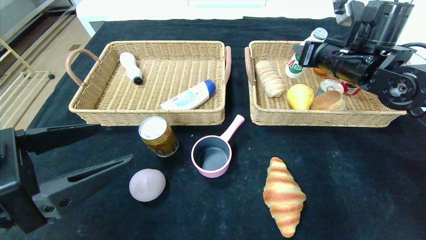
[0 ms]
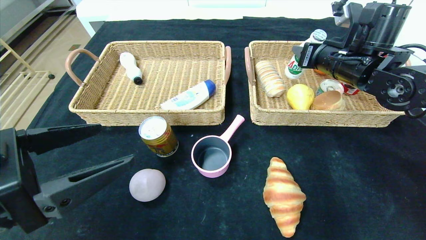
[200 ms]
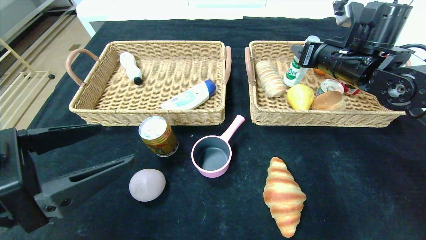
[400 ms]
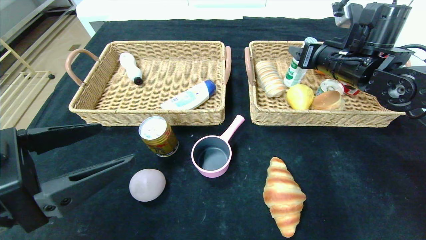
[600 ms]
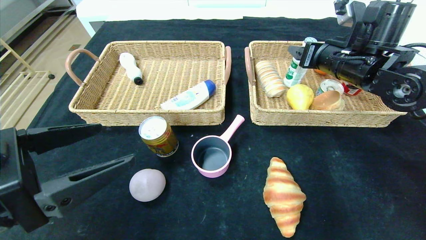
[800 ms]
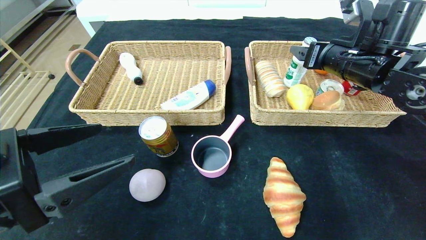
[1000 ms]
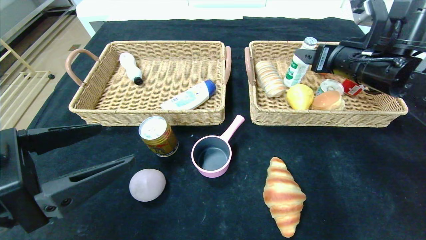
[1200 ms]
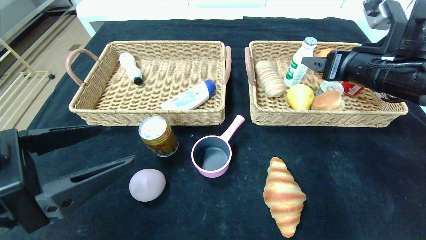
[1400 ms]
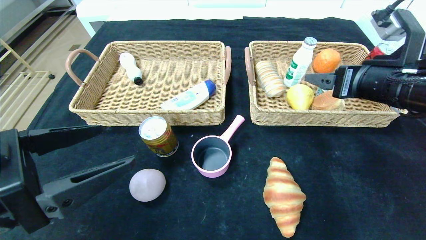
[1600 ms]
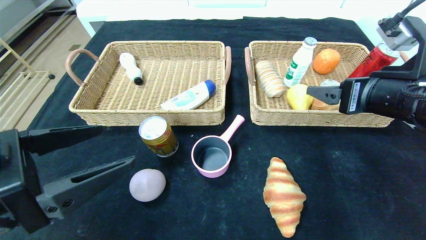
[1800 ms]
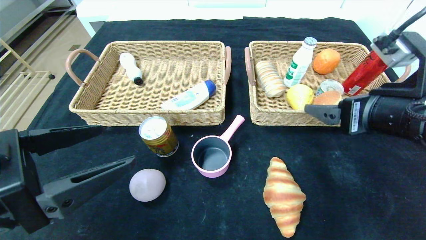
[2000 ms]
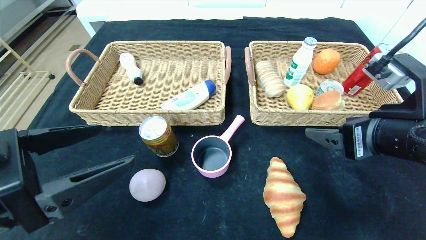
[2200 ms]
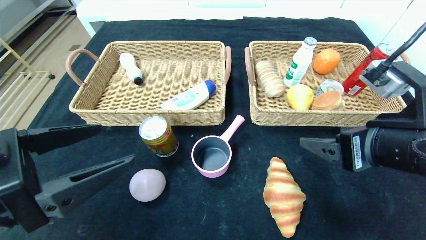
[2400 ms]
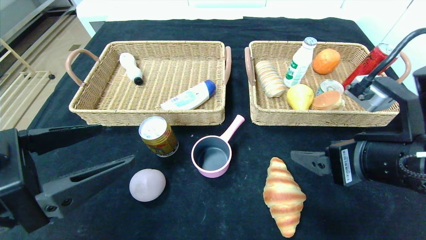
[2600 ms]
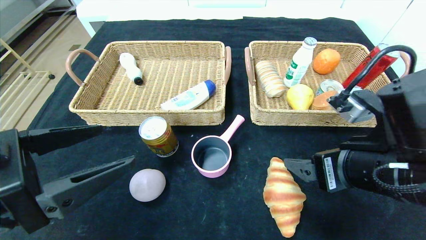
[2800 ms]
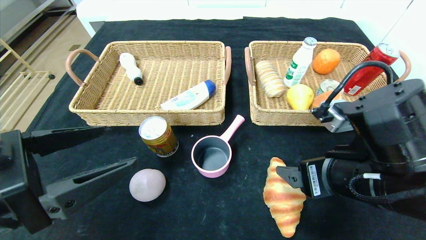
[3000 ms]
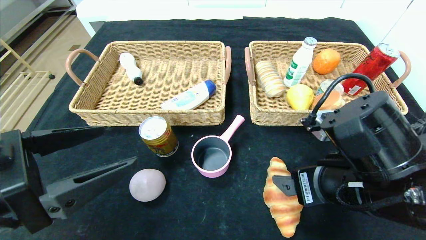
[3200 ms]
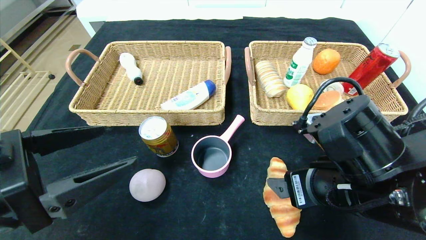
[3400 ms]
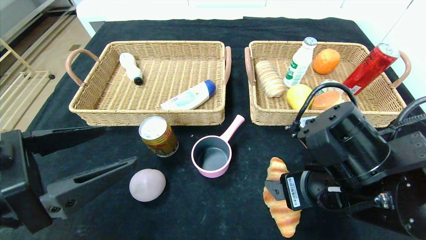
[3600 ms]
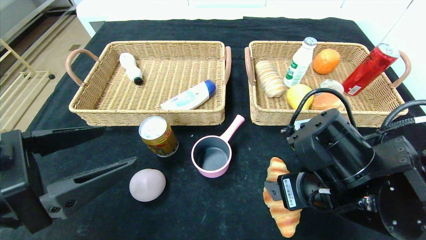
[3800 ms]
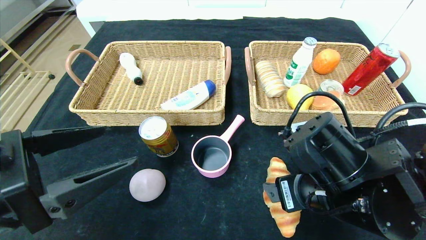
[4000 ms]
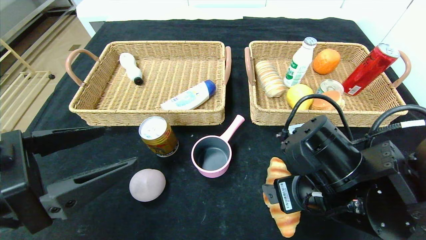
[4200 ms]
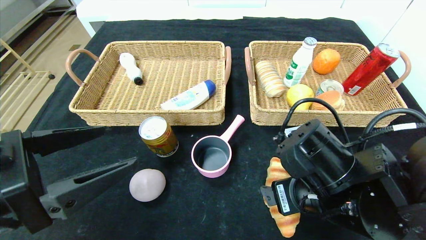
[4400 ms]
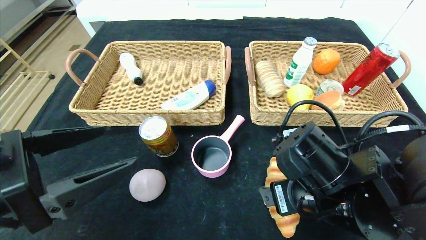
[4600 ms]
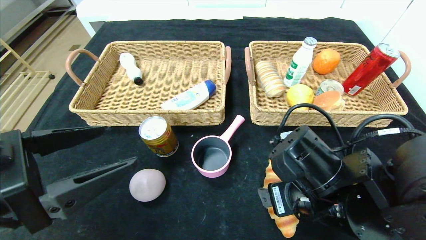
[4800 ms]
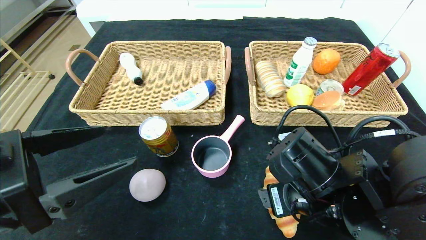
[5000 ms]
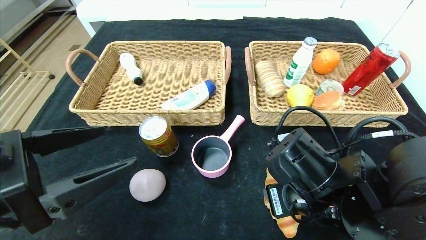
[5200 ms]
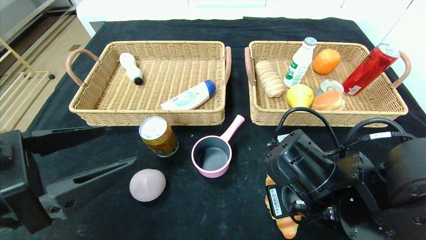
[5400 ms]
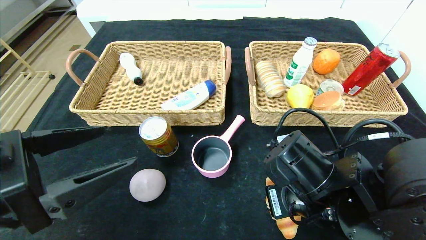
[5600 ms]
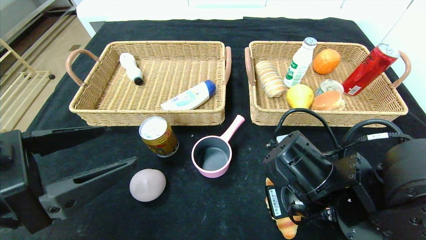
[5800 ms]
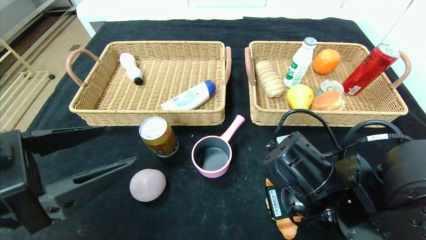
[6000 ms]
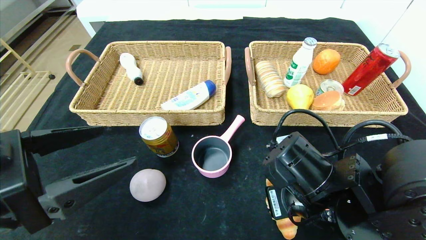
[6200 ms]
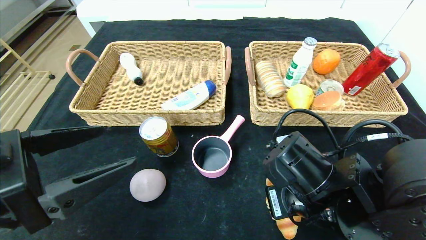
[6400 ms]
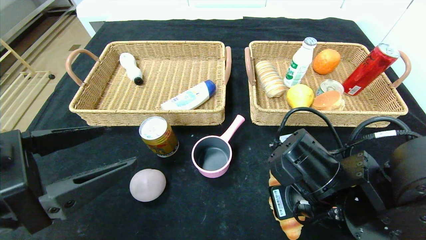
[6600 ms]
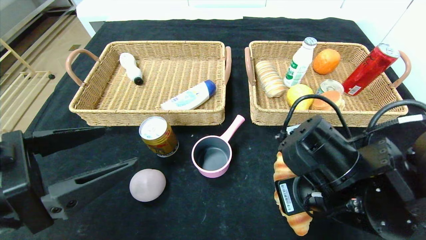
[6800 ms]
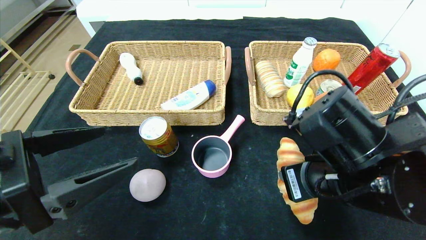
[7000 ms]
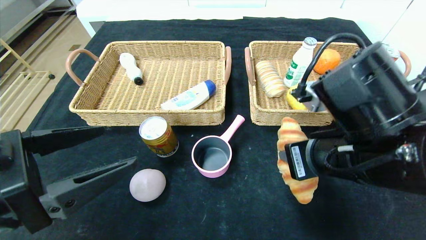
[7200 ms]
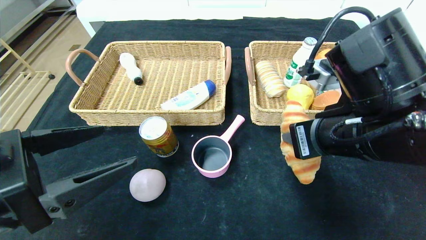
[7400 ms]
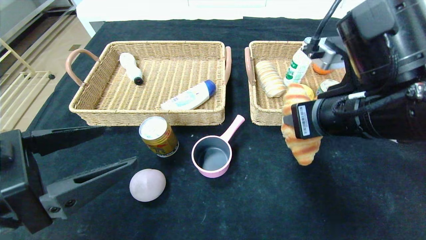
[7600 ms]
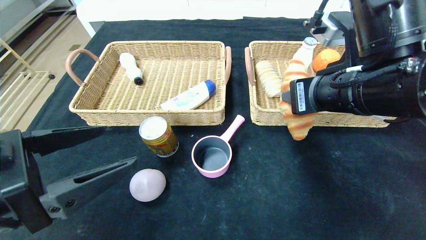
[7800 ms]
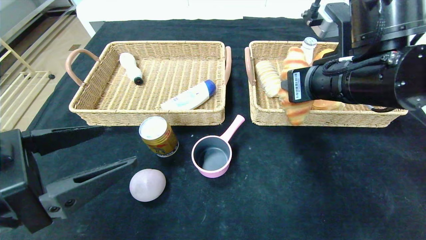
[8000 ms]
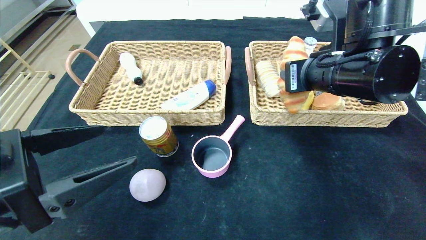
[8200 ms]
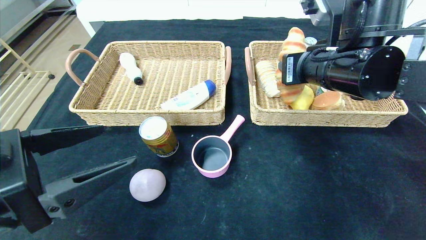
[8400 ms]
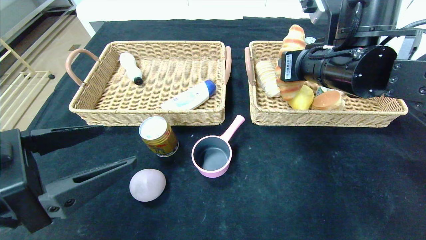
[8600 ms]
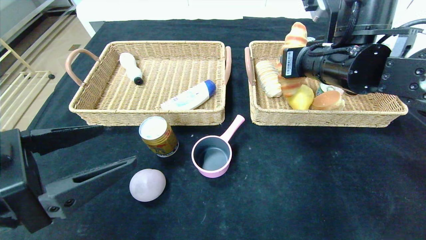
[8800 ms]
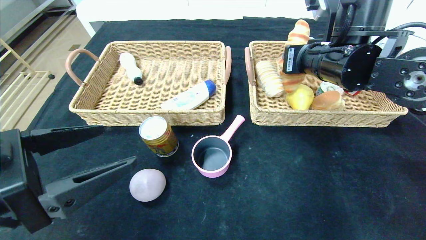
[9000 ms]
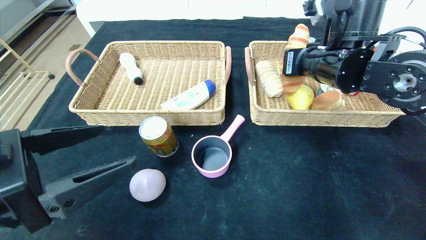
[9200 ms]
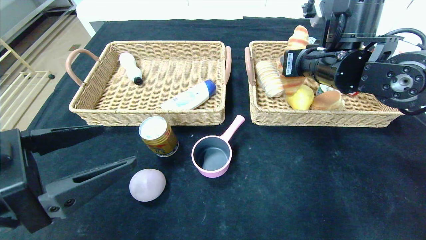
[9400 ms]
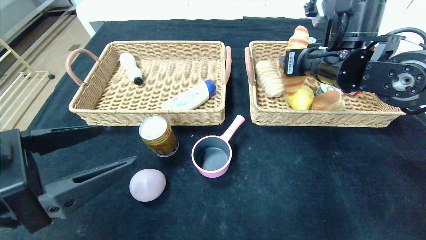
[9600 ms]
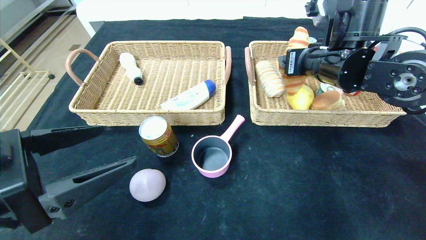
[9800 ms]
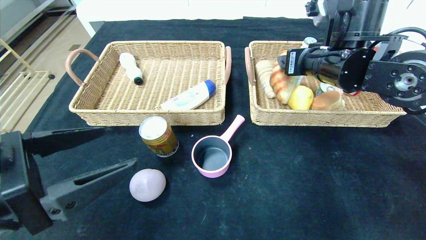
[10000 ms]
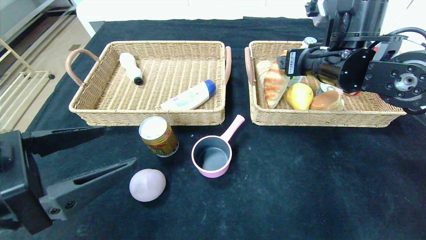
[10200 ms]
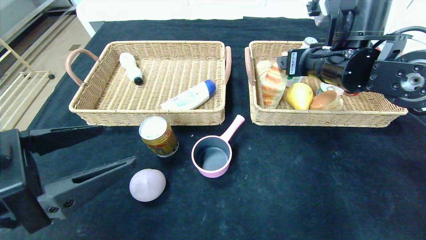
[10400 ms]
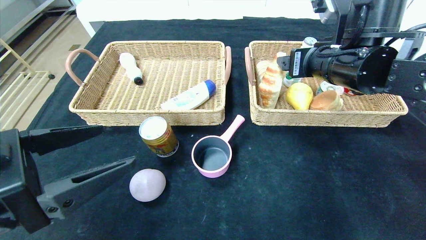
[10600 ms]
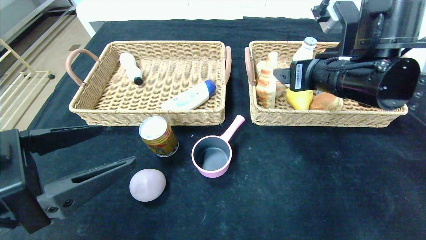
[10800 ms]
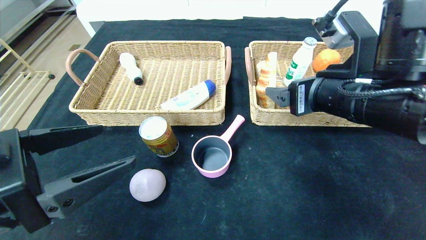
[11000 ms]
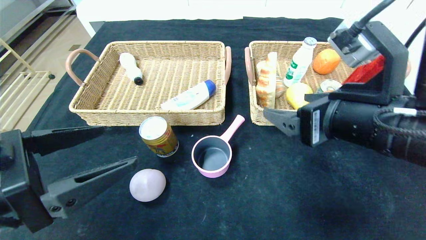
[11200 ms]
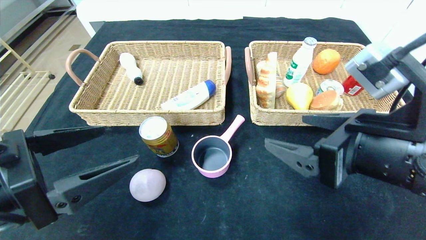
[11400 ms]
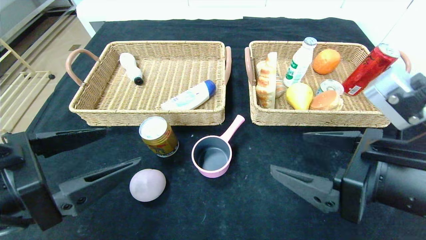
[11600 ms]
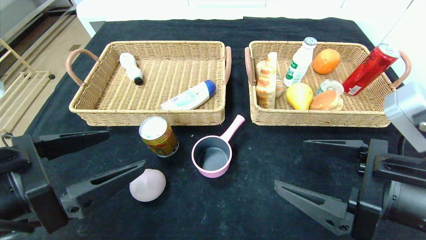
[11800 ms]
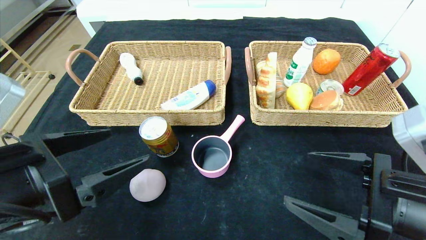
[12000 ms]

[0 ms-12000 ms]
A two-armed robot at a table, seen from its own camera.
Step, 1000 ms to 10200 ms: Grasp the croissant and put it in the right basket.
0 ms to 1600 ms: The right gripper shifts roughly 10 cm backward, and opens.
1600 ms to 3000 ms: The right gripper heads backward, to the left and downward, covering approximately 15 cm.
3000 ms to 4400 ms: The right gripper moves roughly 5 cm.
4400 ms to 6000 ms: The right gripper closes.
6000 ms to 7600 ms: The right gripper shifts about 15 cm upward.
7600 ms to 9000 ms: The right gripper is displaced forward by some 10 cm.
9000 ms to 10400 ms: The right gripper opens its fingers.
10400 ms to 12000 ms: The right gripper moves backward and downward, about 20 cm.

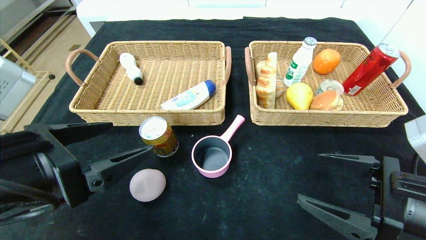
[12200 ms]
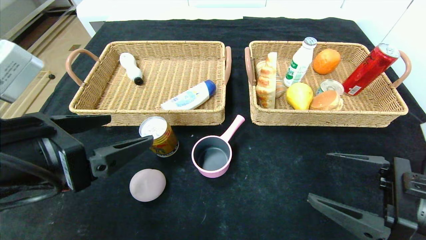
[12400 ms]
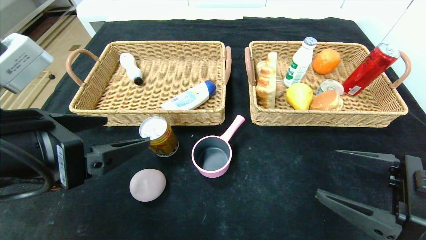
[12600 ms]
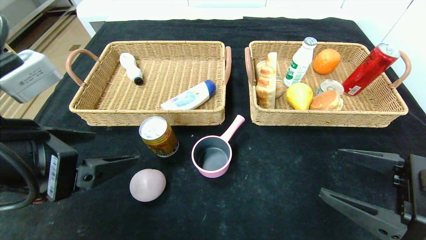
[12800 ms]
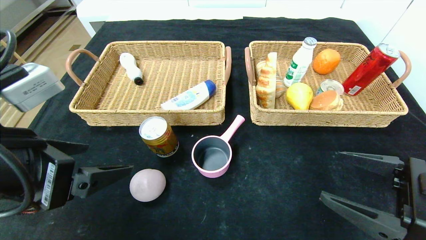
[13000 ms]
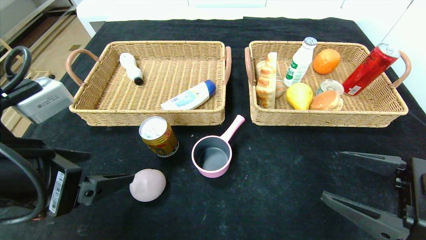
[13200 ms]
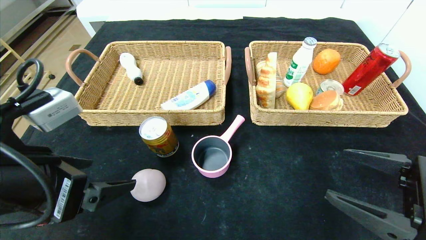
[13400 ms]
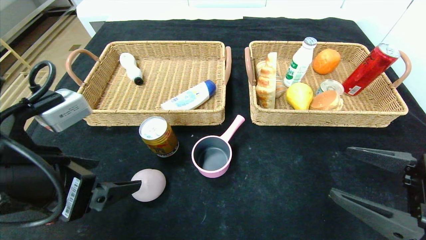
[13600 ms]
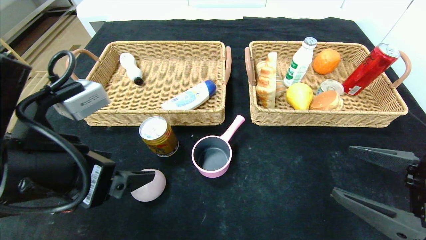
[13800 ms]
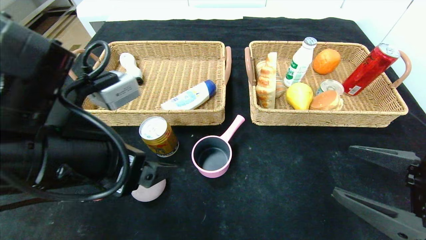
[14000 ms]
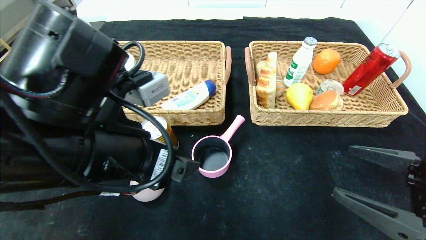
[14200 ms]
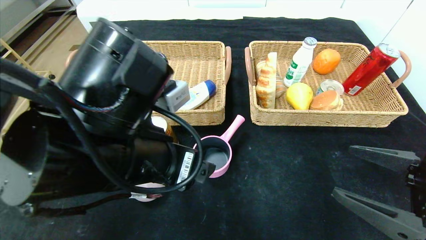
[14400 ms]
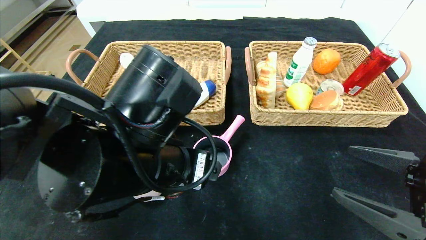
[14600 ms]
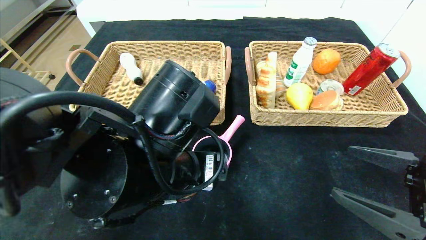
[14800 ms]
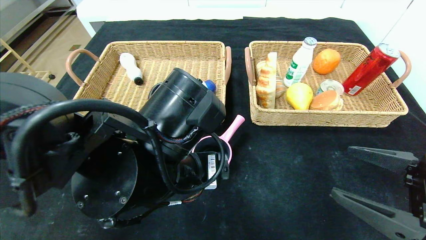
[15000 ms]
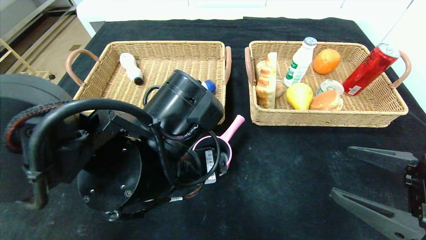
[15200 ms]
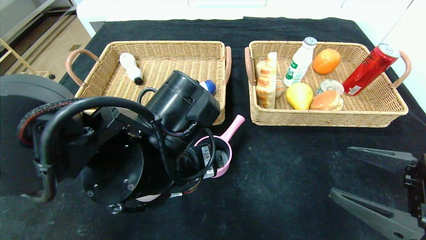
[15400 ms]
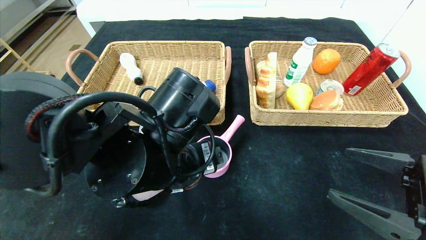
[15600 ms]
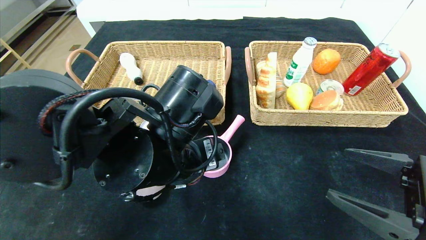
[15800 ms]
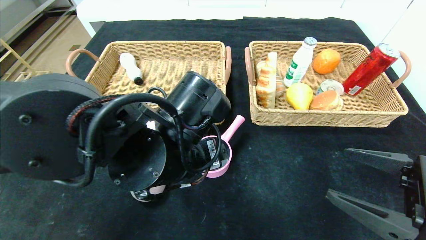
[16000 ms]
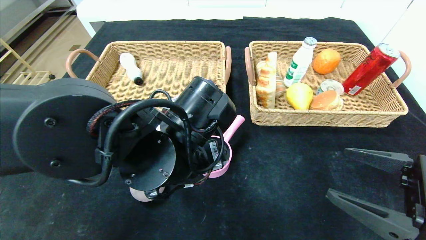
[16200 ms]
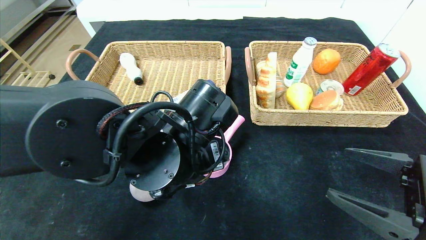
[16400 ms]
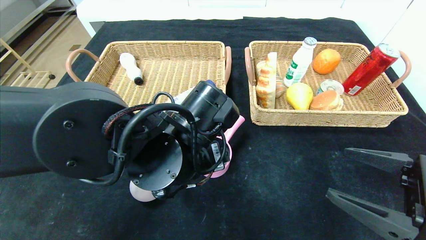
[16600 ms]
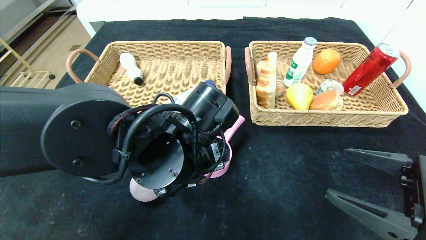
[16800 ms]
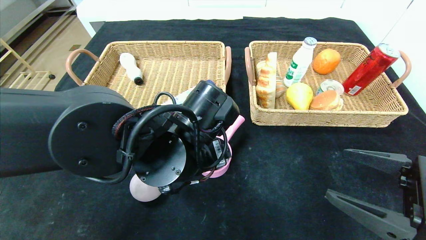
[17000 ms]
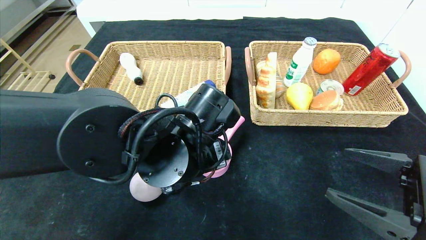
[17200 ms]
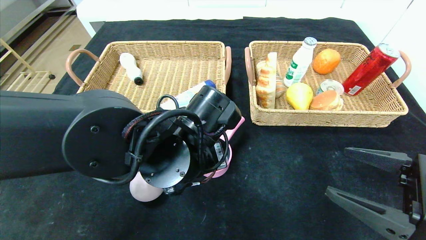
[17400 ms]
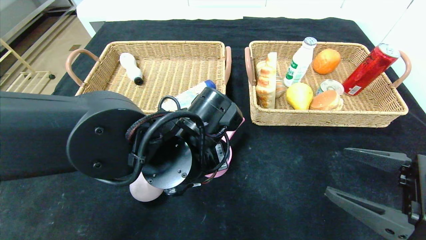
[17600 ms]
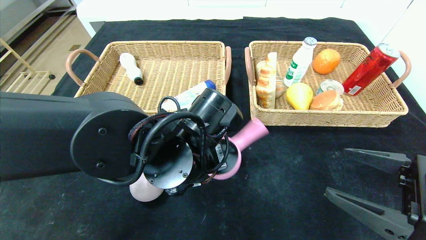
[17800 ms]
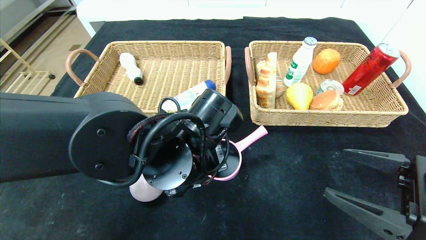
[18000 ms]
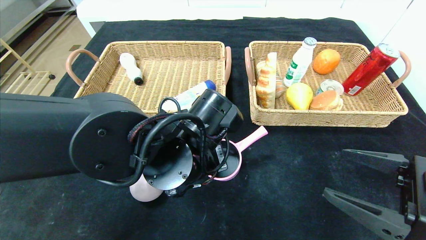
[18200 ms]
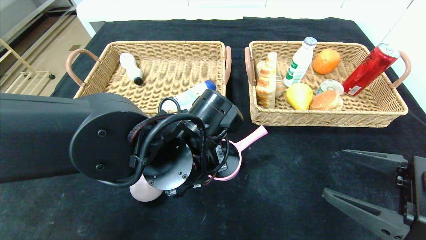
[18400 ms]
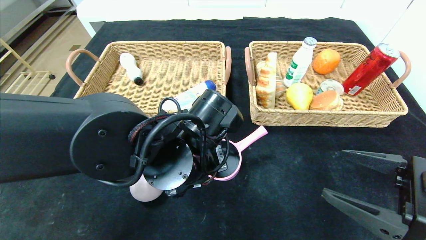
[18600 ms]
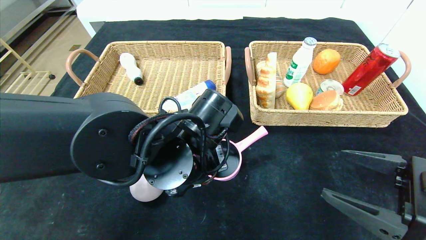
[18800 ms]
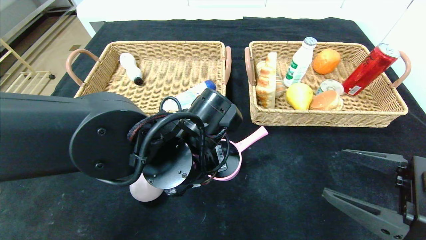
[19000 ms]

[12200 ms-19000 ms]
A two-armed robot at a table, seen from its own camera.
13600 ms to 15000 ms: The left gripper goes approximately 15 cm to the right.
15000 ms to 16200 ms: There are only small adjustments of the grippers.
16200 ms to 17600 ms: The left gripper closes up.
17600 ms to 19000 ms: The left gripper closes its fingers.
